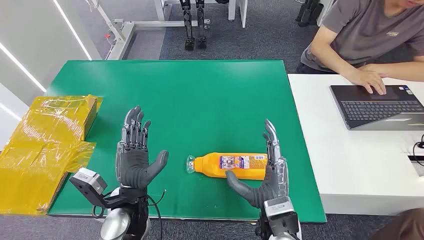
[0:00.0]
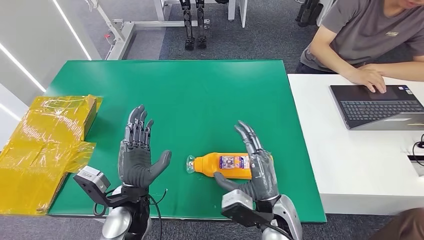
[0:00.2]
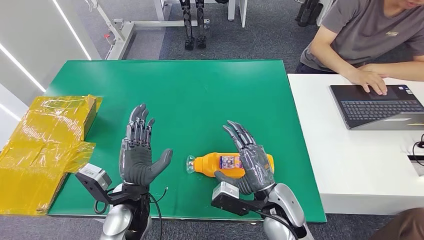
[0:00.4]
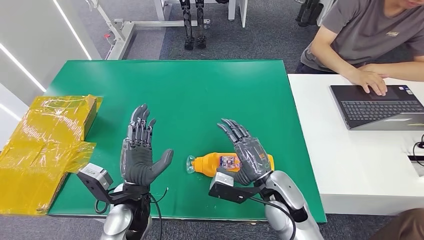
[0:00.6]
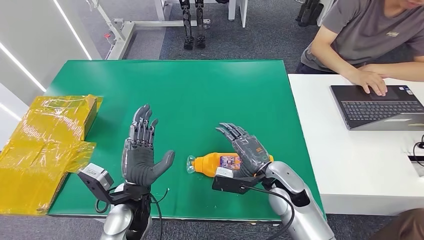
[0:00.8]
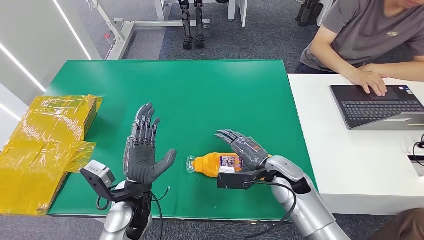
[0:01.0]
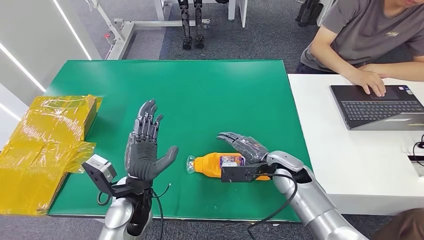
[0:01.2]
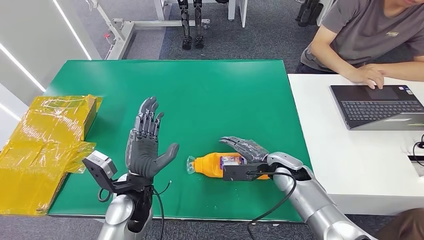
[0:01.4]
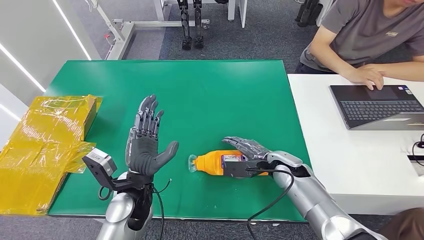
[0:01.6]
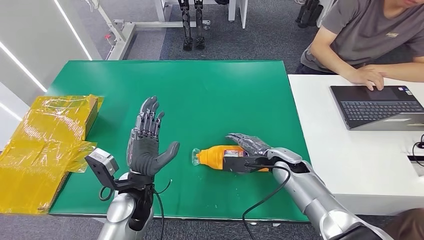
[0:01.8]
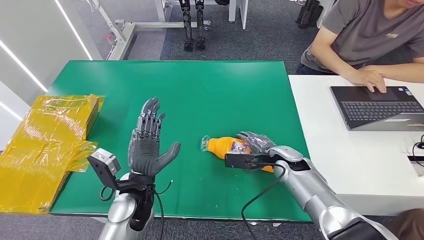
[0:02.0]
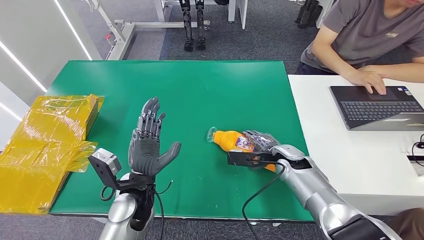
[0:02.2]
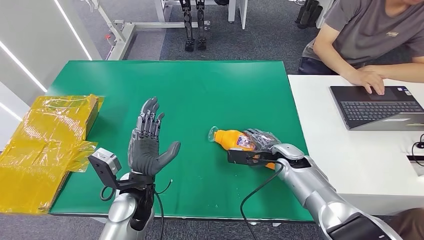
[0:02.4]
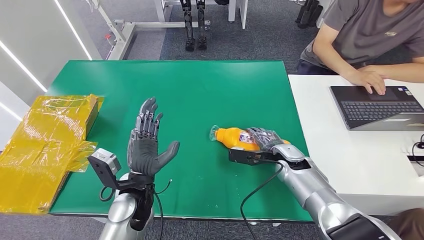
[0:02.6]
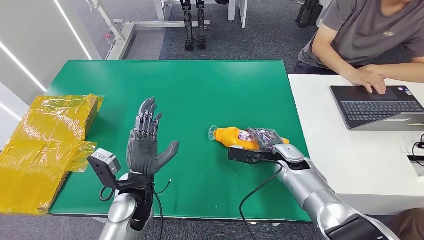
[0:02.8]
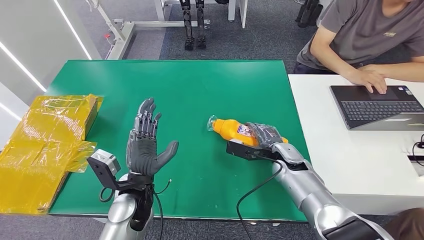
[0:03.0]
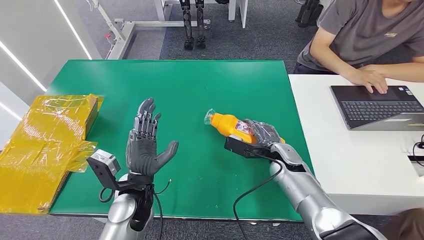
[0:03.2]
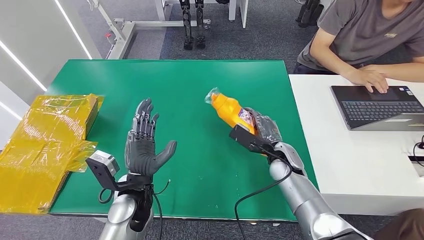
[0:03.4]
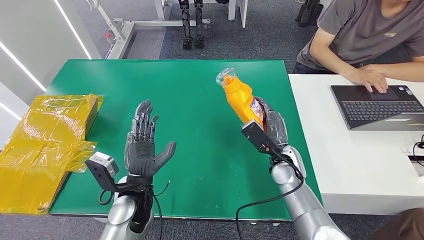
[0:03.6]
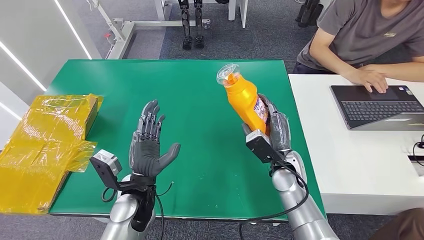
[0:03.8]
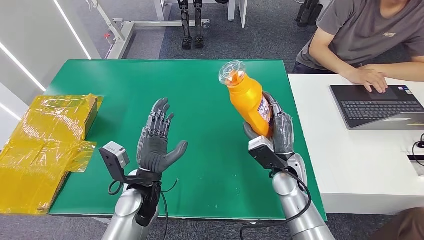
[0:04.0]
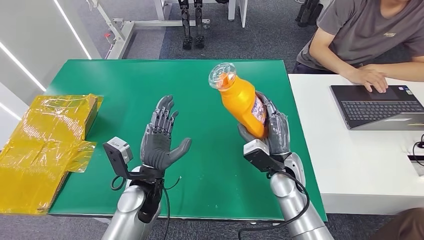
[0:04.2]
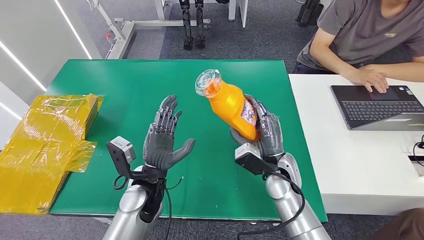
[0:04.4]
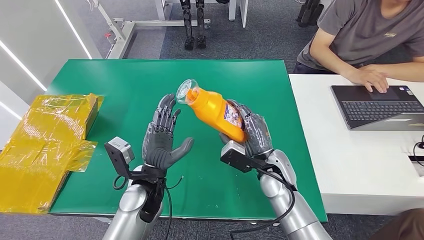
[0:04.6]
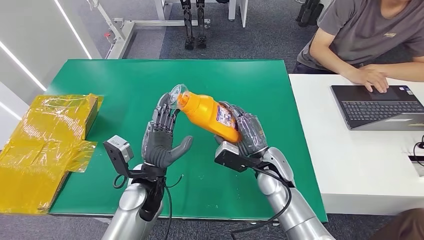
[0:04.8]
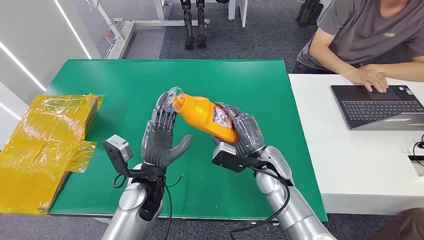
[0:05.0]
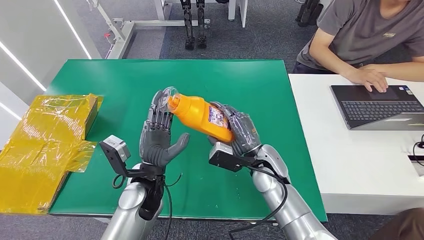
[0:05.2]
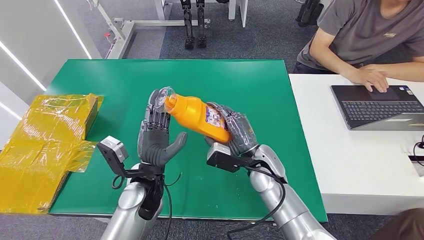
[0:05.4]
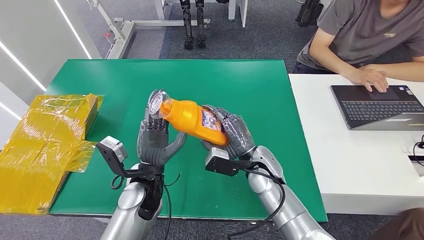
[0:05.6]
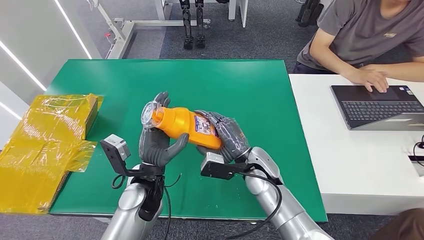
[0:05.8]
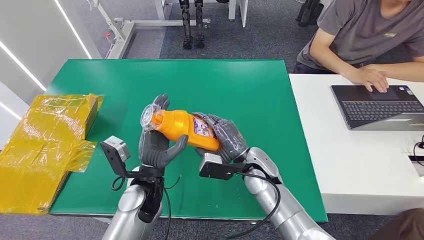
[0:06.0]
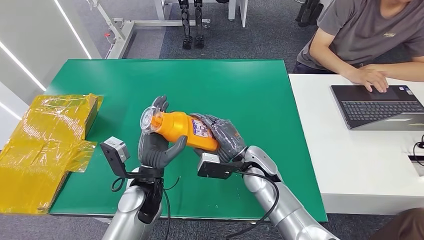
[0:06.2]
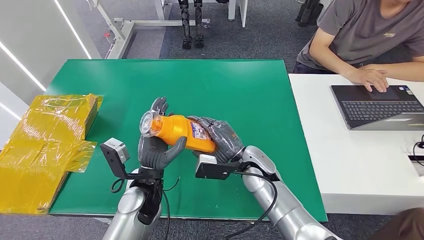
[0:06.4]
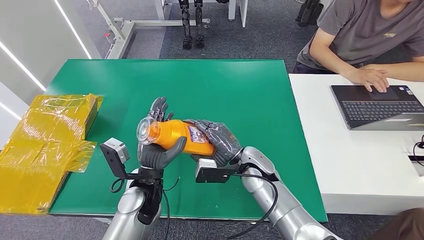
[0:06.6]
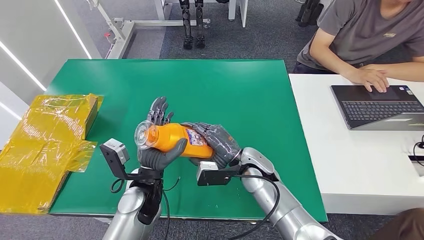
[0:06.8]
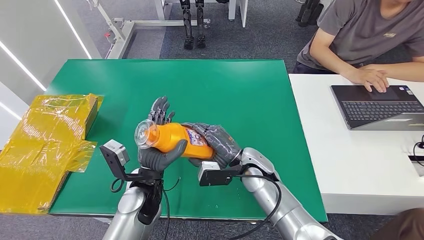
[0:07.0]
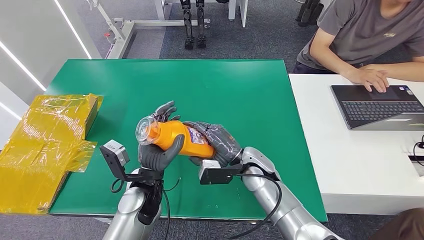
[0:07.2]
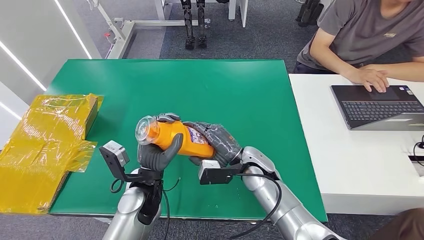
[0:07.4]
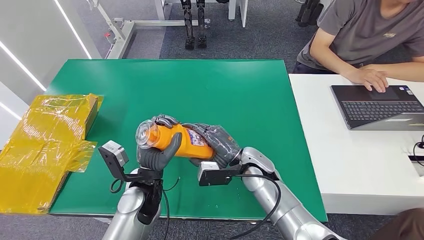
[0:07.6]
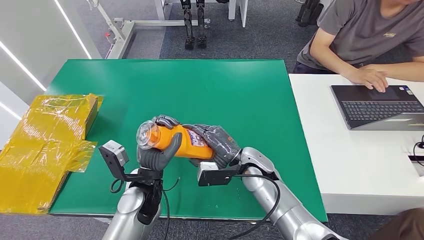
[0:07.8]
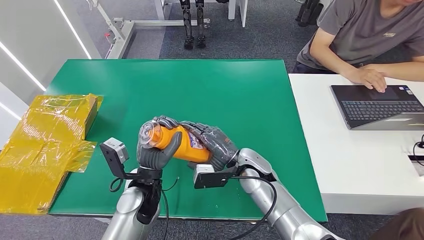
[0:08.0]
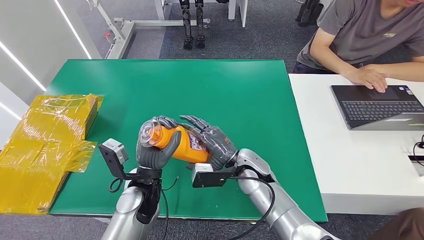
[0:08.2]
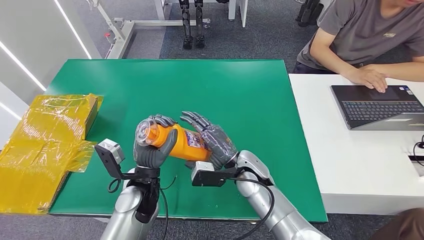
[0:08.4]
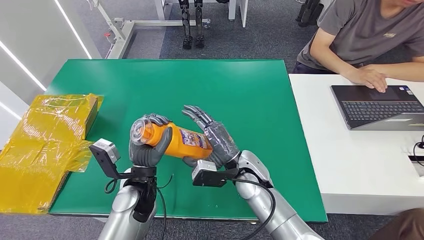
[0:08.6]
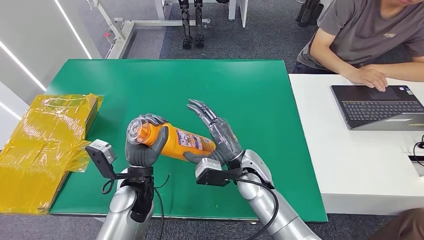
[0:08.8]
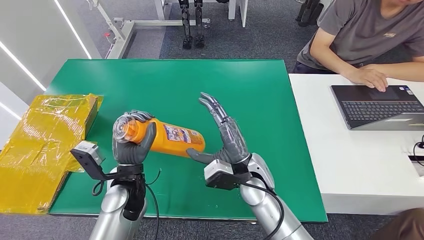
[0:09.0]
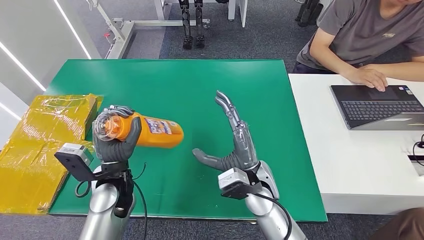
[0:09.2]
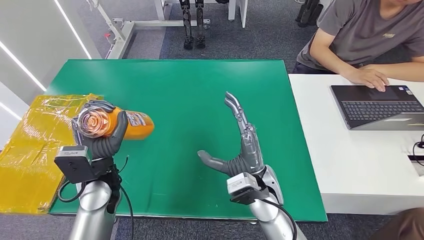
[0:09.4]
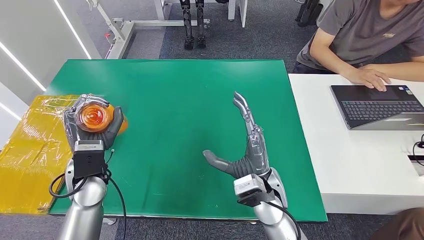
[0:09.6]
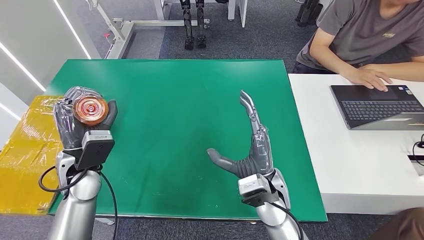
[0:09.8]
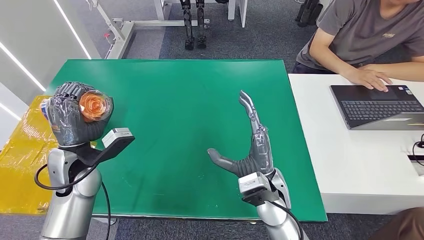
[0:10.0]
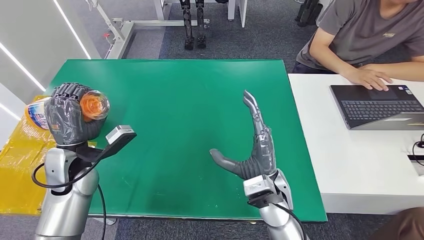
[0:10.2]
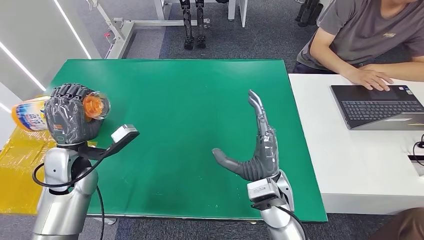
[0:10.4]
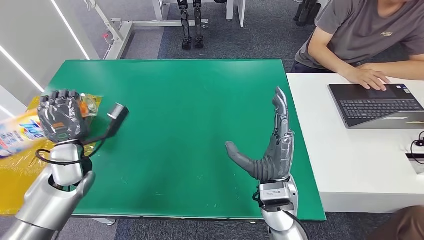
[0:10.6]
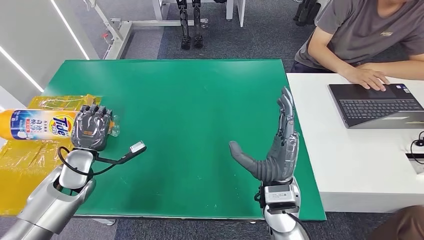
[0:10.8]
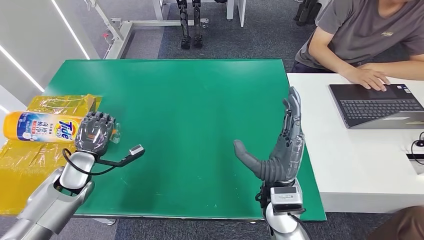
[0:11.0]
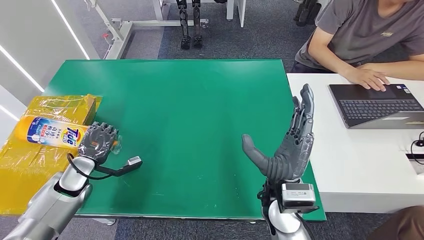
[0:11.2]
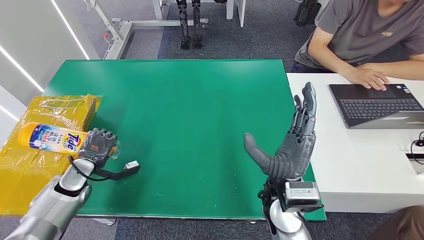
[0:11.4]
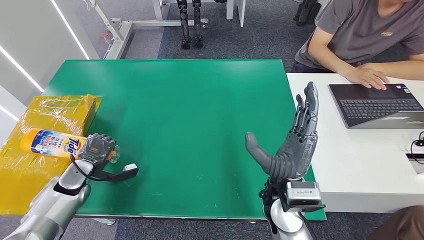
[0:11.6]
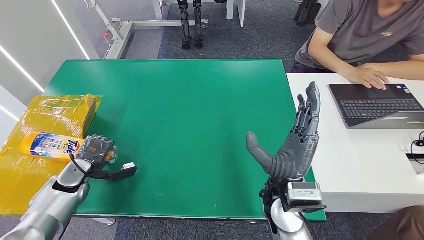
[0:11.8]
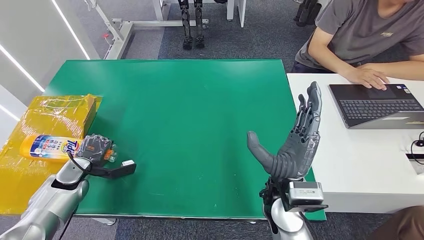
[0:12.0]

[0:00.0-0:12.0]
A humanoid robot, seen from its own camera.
Step, 0:00.0 to 0:05.6: Pick up the bottle from the table.
0:03.0 to 0:04.4: The right hand travels backward by about 5 cm.
0:04.4 to 0:06.0: The right hand goes roughly 5 cm to the left.
0:06.0 to 0:07.6: There are only small adjustments of the hands.
0:07.6 to 0:09.0: The right hand moves roughly 5 cm.
0:09.0 to 0:10.4: The right hand changes place by some 5 cm; the left hand travels to the left by about 15 cm.

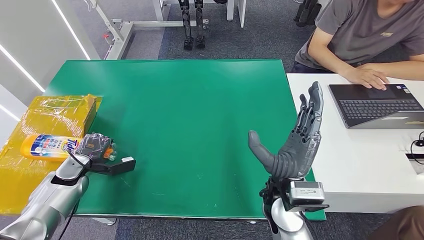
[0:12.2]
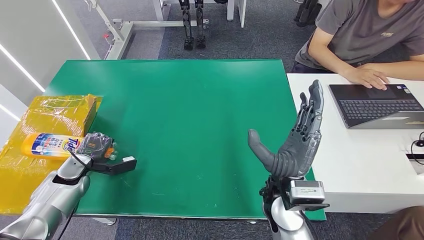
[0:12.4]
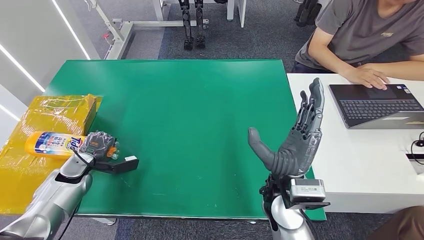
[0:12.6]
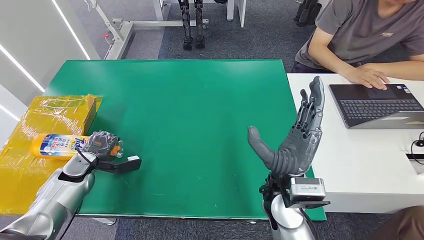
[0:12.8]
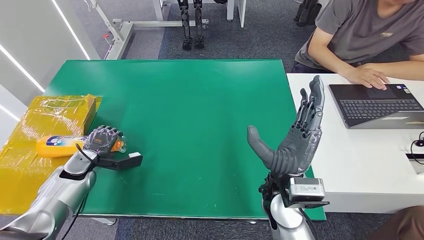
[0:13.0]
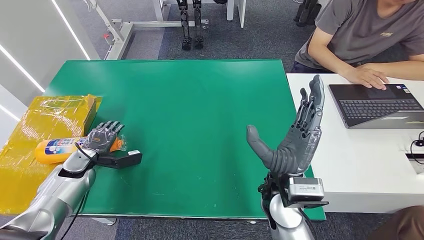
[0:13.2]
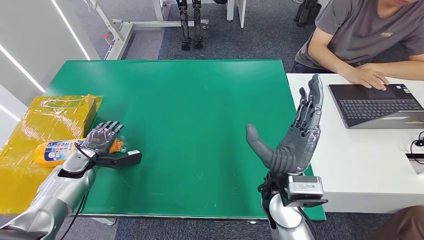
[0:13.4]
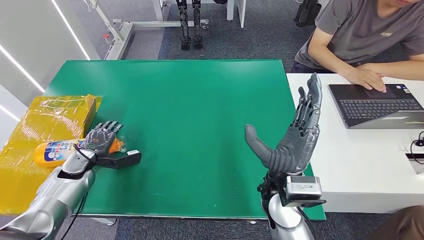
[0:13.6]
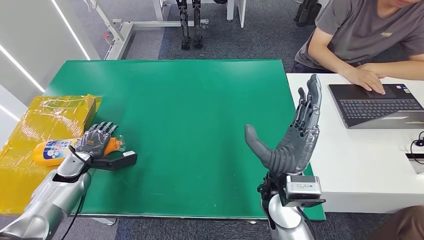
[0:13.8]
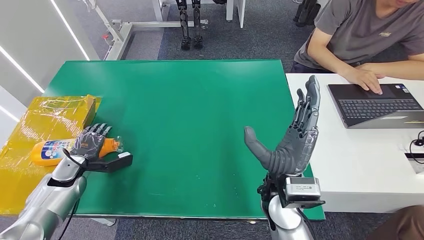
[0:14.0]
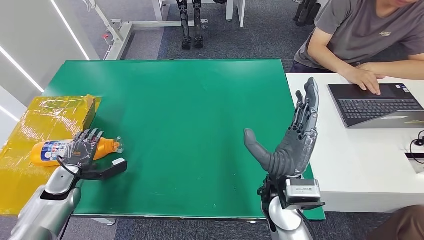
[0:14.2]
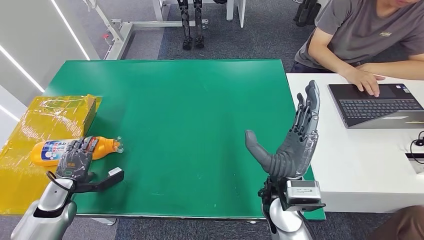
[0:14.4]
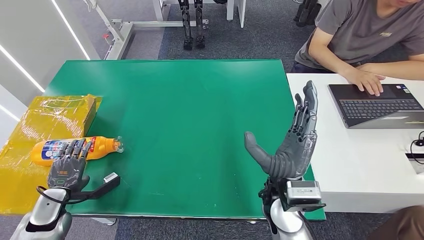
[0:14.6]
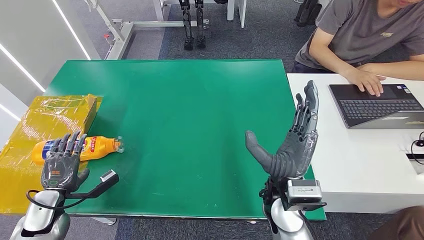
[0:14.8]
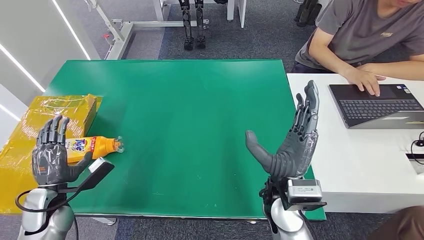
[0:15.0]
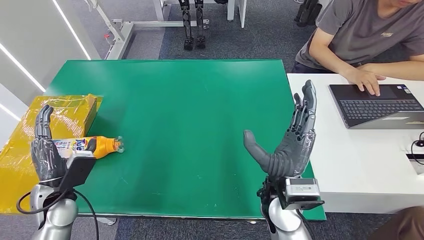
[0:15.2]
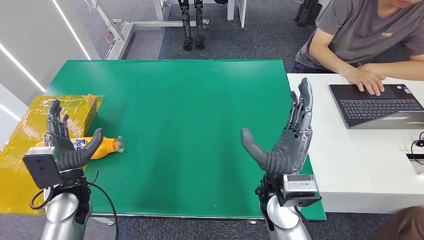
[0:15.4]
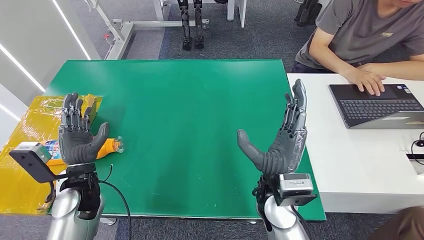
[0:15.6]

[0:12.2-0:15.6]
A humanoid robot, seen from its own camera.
Step, 0:12.2 to 0:15.6: Turn the bottle to the front side.
0:12.2 to 0:13.8: The hands stay close to where they were, moving slightly.
0:13.8 to 0:15.6: The left hand goes about 15 cm to the right, upward and backward.
